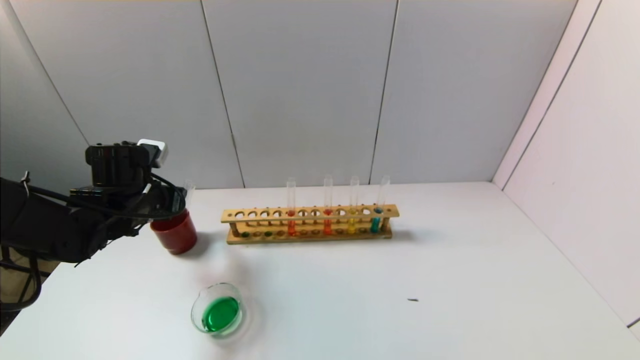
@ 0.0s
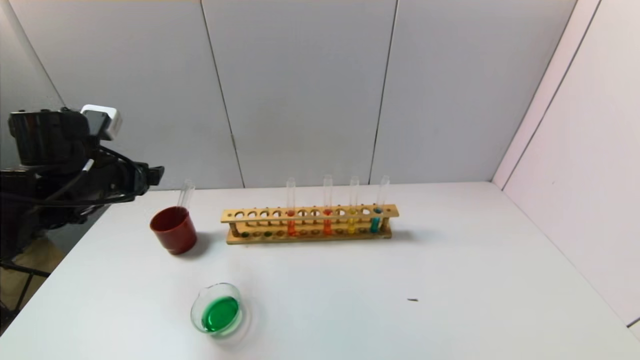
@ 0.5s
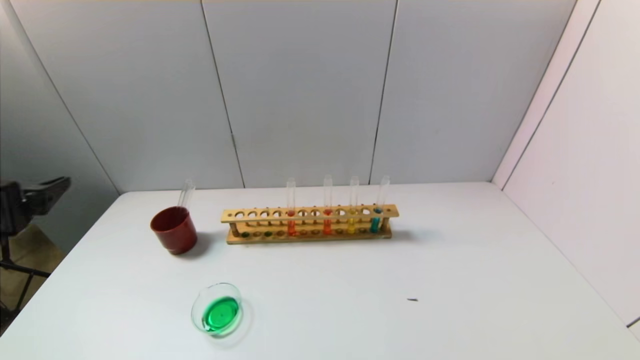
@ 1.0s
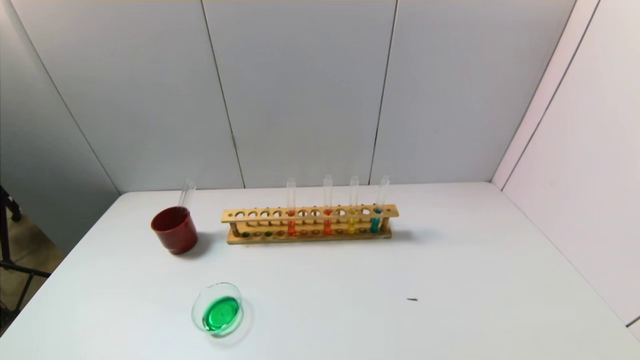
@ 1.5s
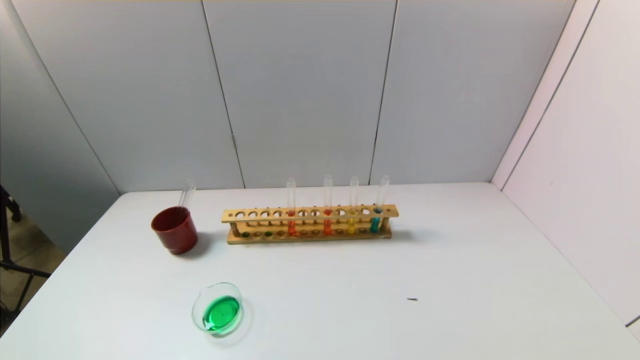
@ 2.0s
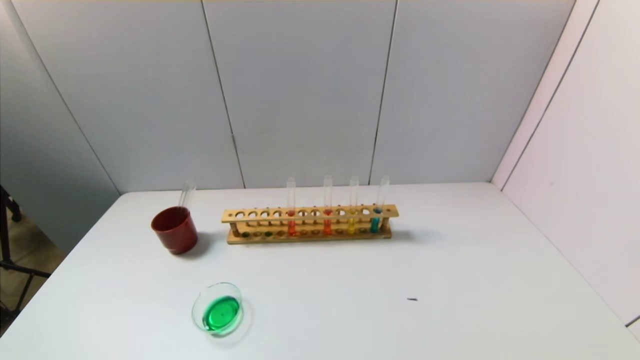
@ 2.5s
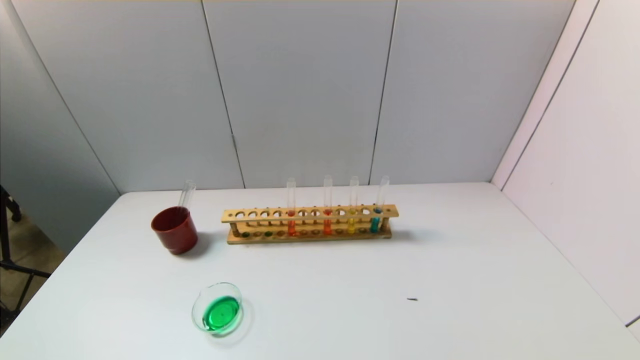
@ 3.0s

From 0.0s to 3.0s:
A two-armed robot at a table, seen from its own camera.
Task of the whole recording: pick up the test tube with yellow pigment and the test tube with blue pigment by grippers and pour them into the beaker.
From 0.0s to 1.5s: The left gripper shifts some 35 cm backward.
